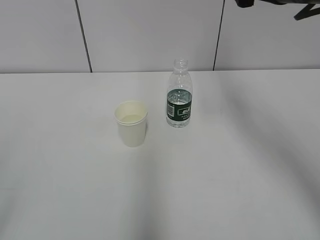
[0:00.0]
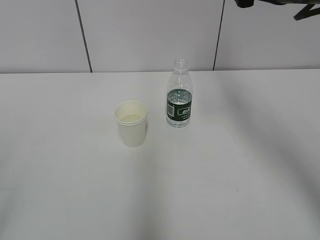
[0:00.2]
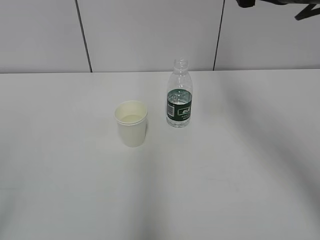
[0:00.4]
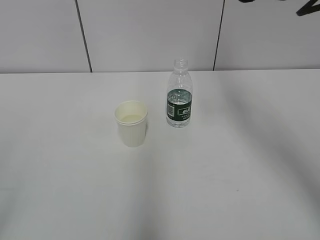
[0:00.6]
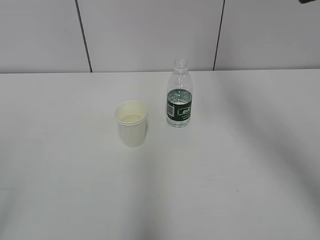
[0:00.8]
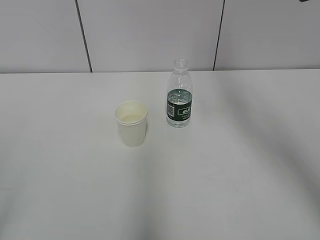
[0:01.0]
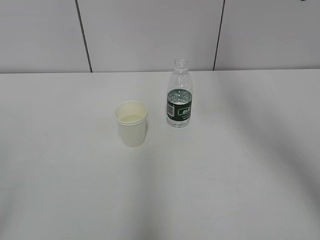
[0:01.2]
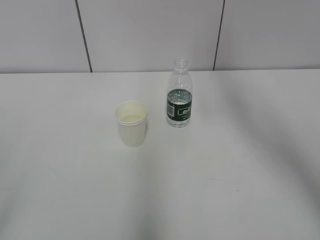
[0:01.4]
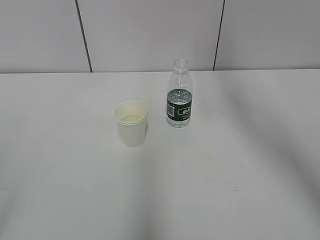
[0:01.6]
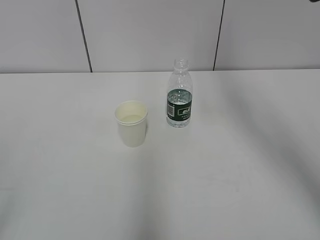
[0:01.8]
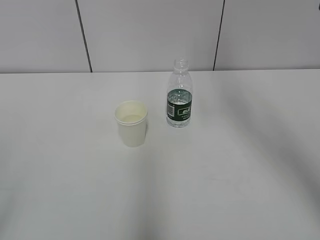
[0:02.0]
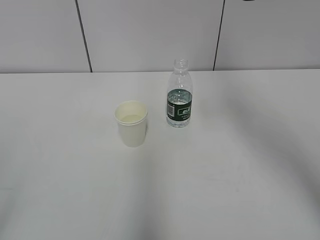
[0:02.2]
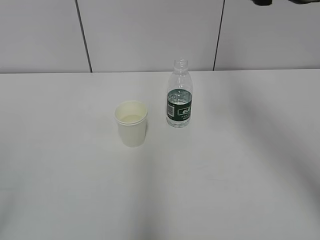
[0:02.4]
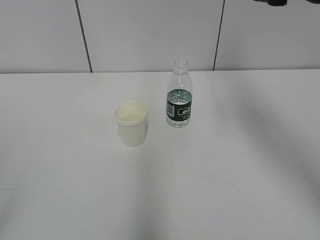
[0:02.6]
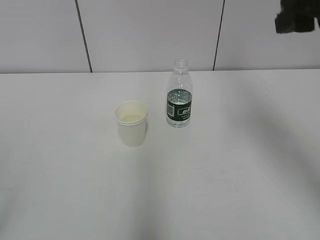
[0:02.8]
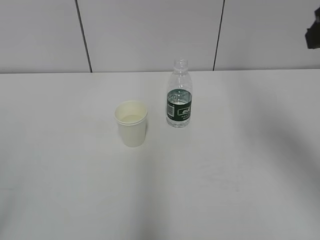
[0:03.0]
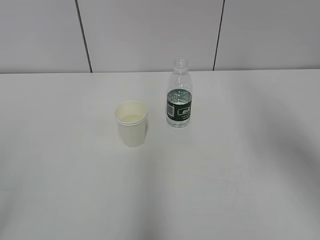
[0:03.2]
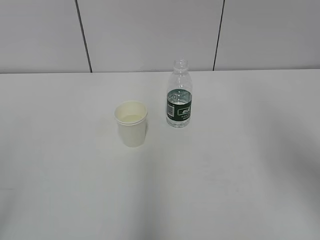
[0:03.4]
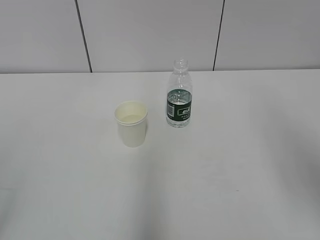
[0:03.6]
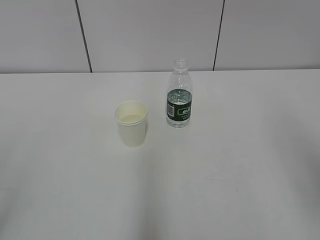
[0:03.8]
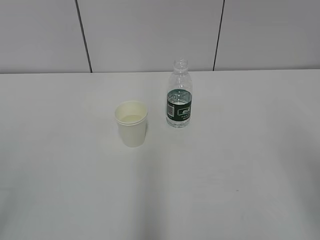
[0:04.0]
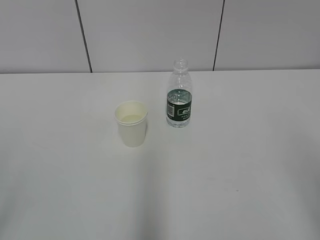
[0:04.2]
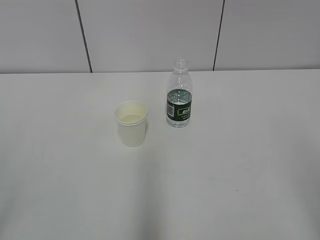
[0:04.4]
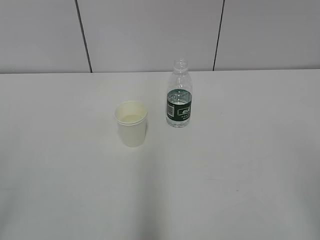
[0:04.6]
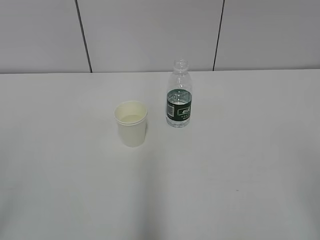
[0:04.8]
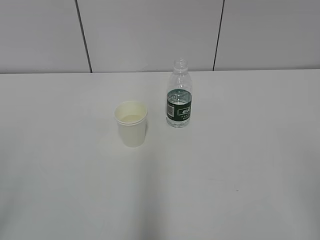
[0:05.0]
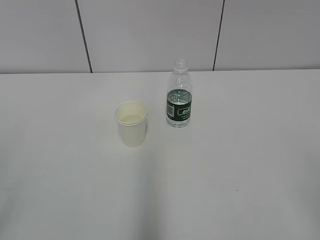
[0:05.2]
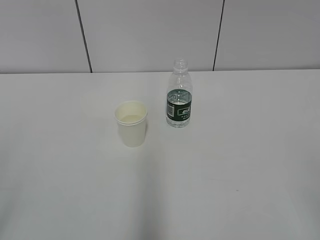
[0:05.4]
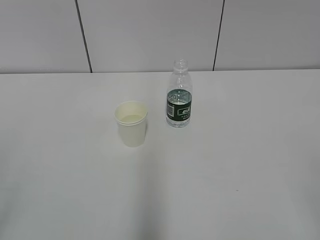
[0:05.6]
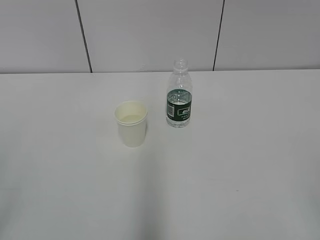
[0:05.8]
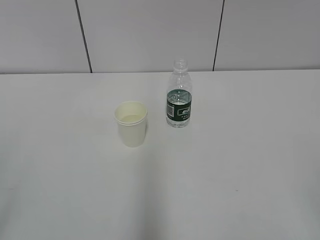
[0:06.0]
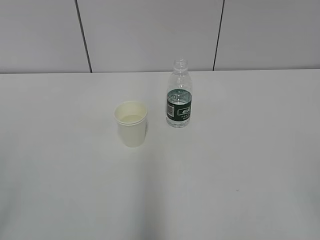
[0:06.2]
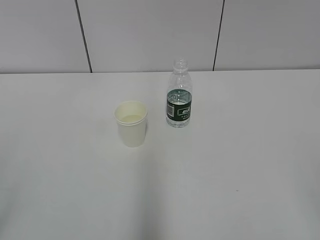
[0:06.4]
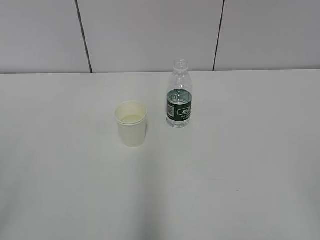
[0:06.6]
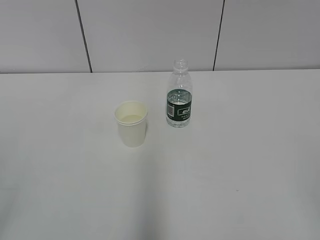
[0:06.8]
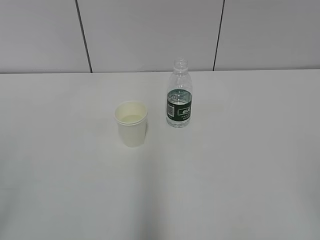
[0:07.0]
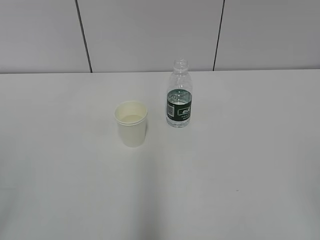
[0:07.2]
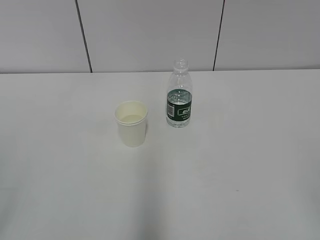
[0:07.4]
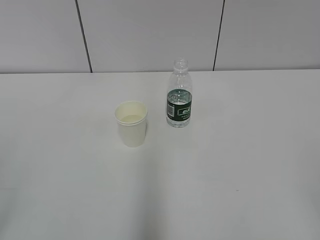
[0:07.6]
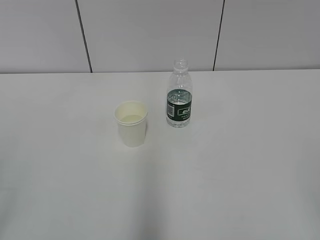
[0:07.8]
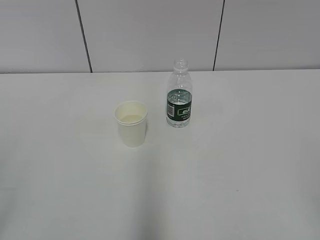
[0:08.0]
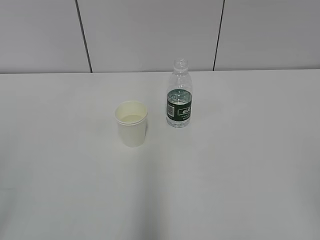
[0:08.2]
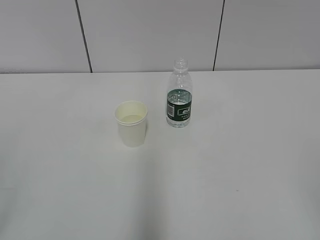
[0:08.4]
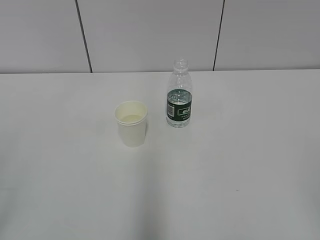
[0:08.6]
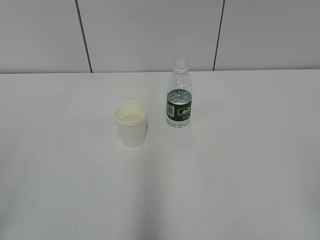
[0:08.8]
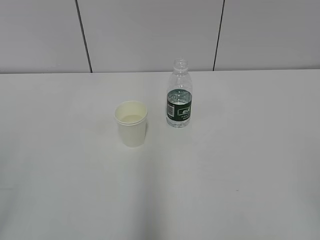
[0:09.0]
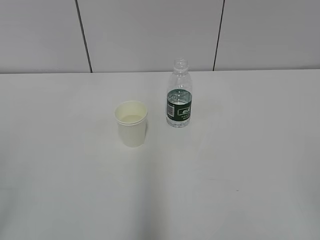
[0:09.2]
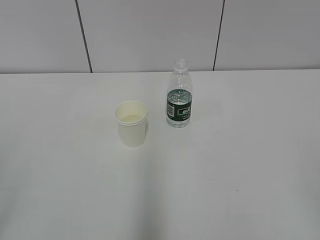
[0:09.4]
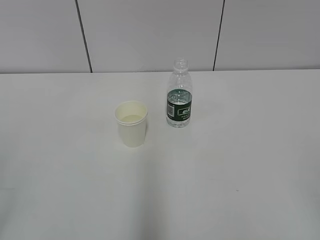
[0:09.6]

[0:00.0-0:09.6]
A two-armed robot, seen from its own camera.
0:01.6 to 0:03.2: The right gripper shifts some 15 cm backward and to the right.
0:06.4 to 0:09.6: Neither gripper changes place.

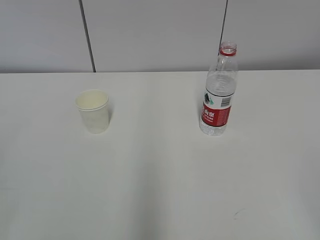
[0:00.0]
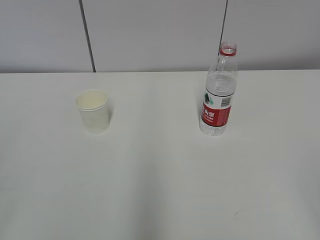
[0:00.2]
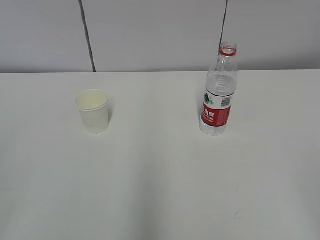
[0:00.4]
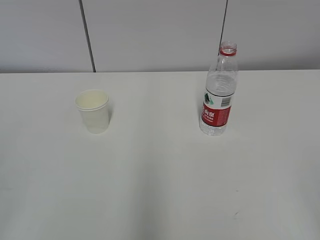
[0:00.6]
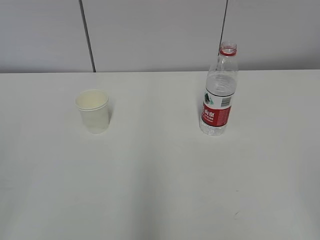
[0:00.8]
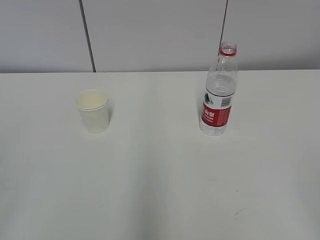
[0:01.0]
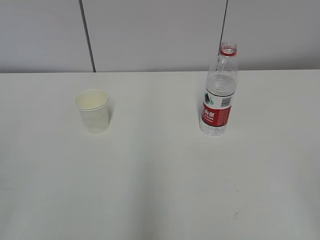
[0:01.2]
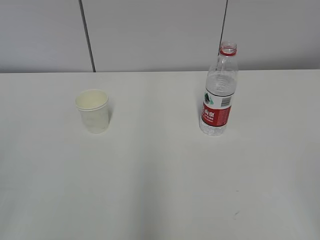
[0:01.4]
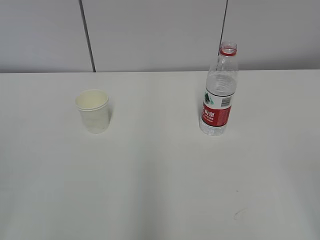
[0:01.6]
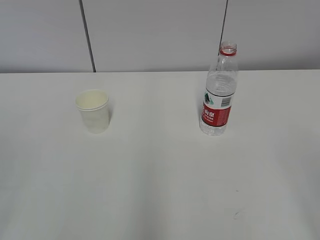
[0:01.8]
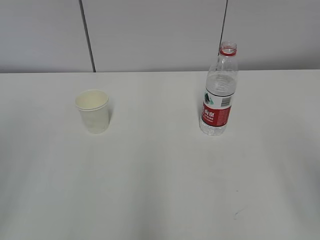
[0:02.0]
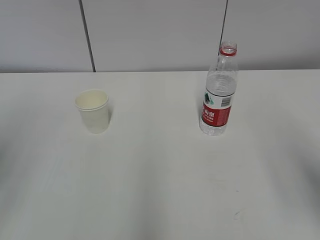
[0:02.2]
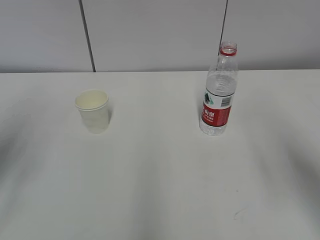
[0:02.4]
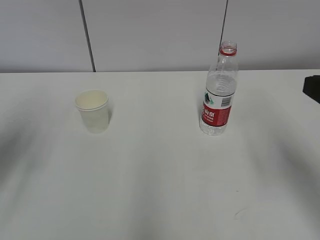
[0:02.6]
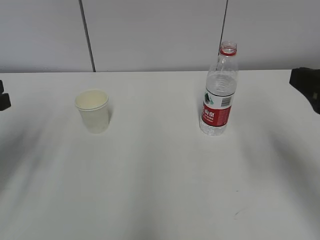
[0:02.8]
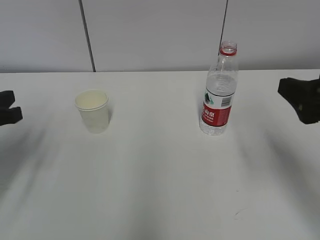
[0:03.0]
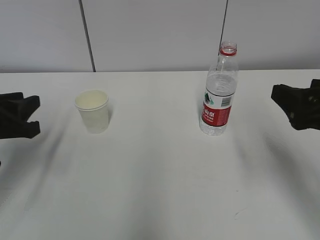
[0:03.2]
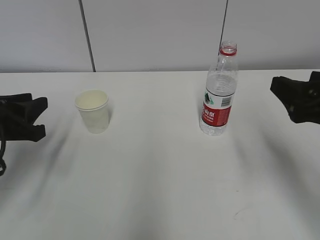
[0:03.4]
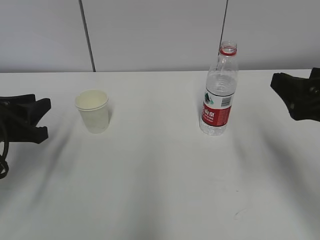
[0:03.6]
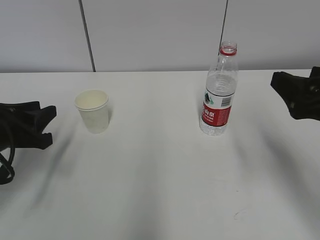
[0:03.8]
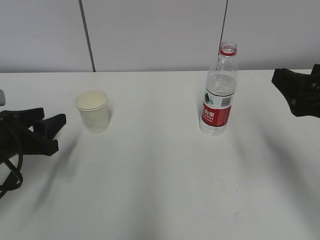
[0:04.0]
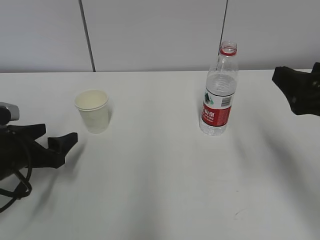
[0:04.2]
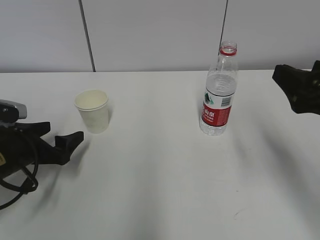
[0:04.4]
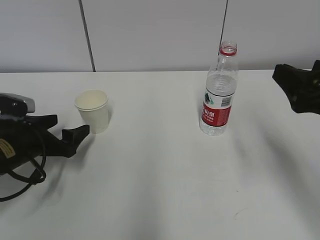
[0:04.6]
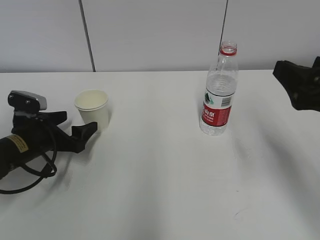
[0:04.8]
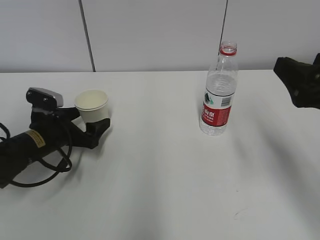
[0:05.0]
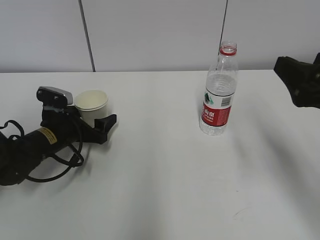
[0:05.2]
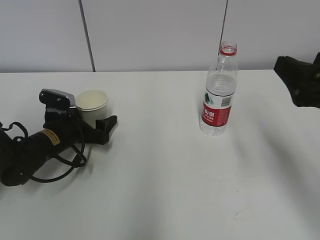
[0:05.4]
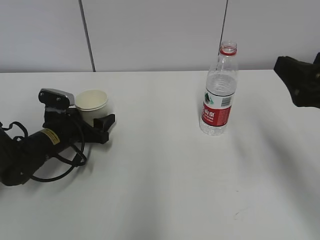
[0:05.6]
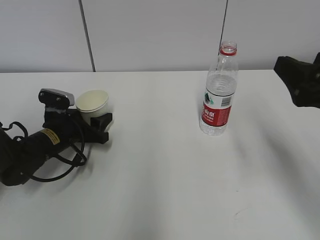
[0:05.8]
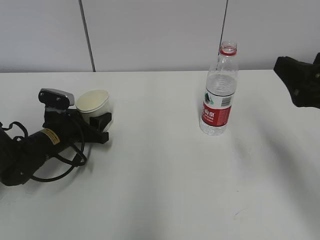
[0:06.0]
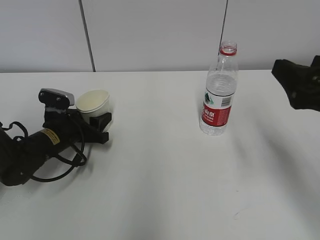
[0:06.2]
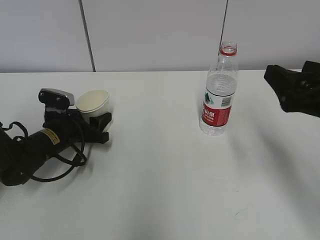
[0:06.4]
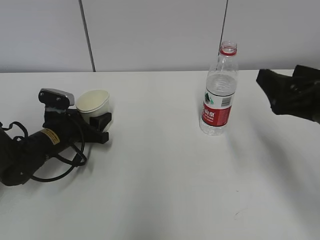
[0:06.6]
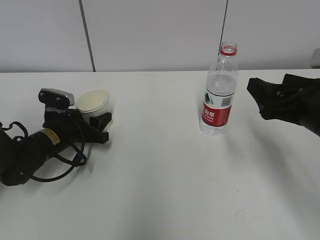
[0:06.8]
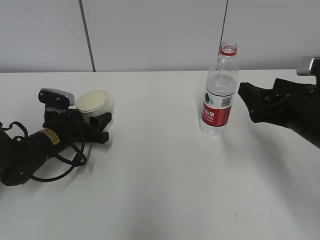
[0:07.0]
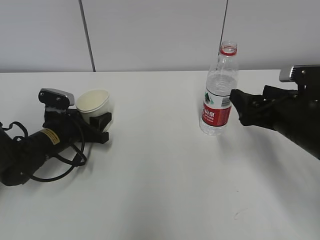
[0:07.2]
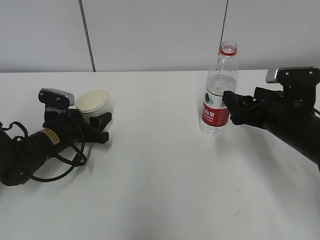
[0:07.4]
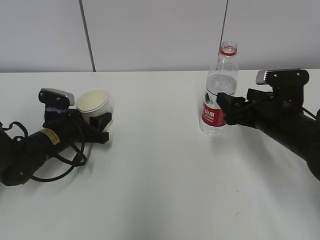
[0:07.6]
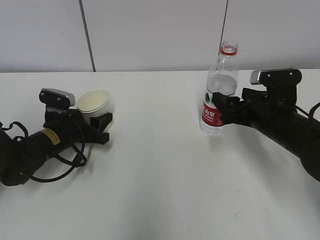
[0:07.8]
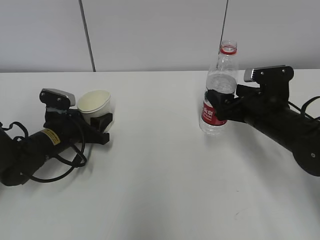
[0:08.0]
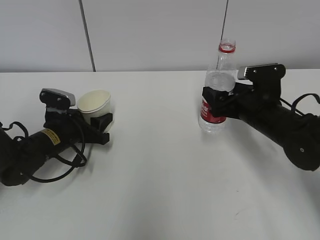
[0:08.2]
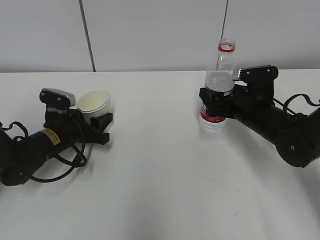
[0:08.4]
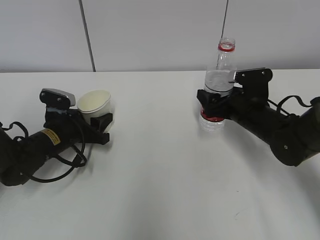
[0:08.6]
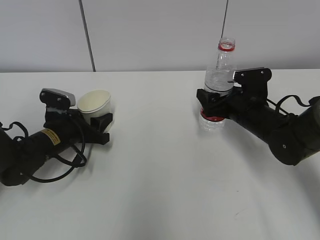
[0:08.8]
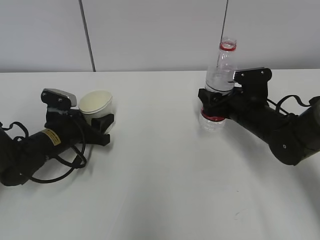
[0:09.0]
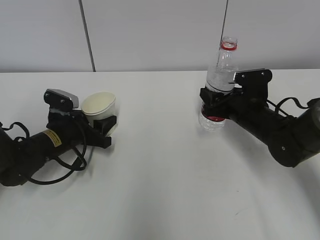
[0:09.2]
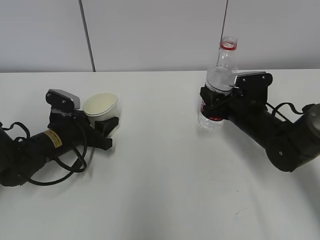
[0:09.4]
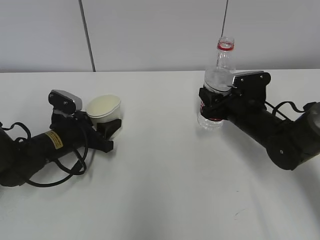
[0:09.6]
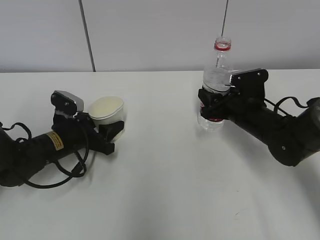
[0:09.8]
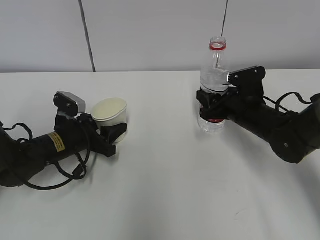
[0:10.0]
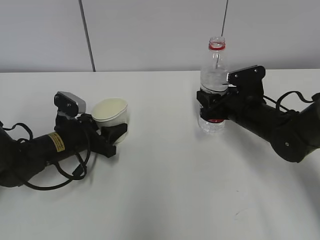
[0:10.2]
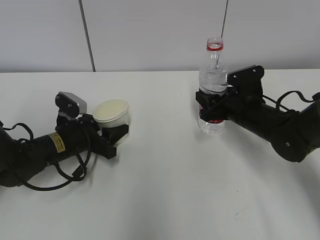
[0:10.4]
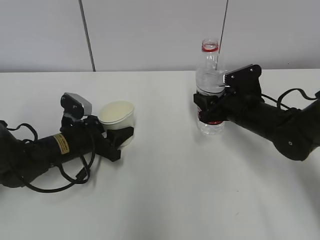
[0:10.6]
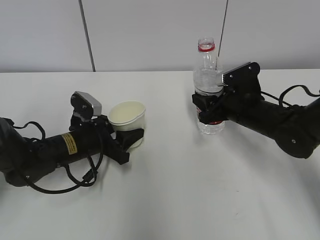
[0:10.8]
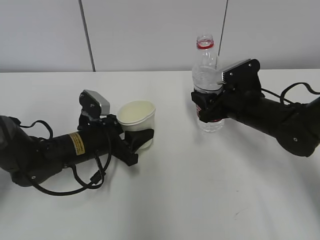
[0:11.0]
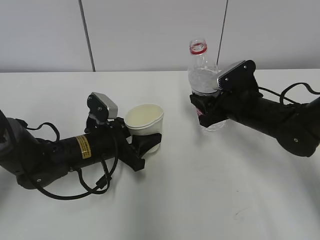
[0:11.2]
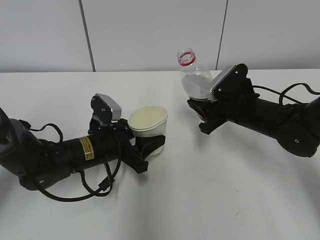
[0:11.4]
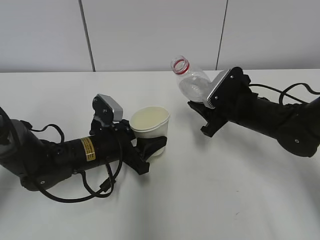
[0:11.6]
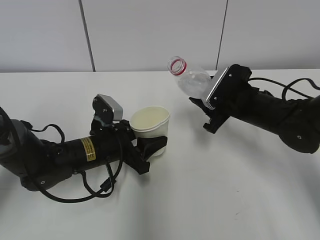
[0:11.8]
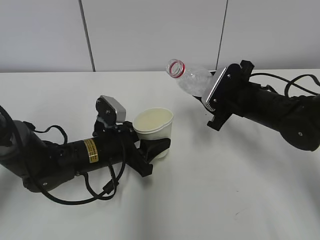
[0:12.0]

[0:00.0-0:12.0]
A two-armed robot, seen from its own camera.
Step, 0:00.0 to 0:04.8: Grab the paper cup with the left hand.
Step, 0:05.0 to 0:07.6: Grab the water bottle with the right hand.
0:01.6 to 0:03.0: Both grippers move forward, about 25 cm.
0:03.0 to 0:04.4: The left gripper goes roughly 10 cm downward, and opens its fingers.
0:04.4 to 0:06.0: The left gripper is displaced forward by roughly 10 cm, and closes its fingers.
0:06.0 to 0:07.6: The right gripper moves downward and forward, about 15 cm.
0:07.6 to 0:09.0: The right gripper heads forward, covering approximately 5 cm, and closes its fingers.
0:09.0 to 0:10.4: The right gripper closes its fingers.
0:10.4 to 0:12.0: The left gripper moves to the right, roughly 10 cm.

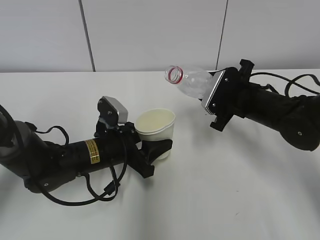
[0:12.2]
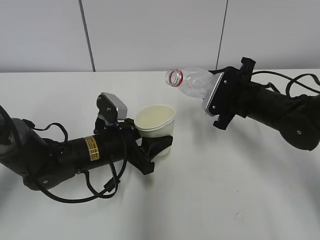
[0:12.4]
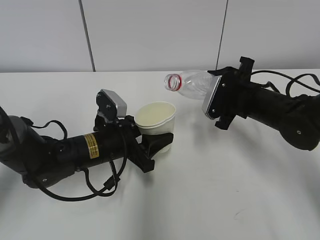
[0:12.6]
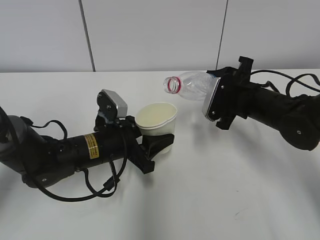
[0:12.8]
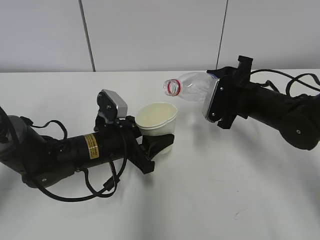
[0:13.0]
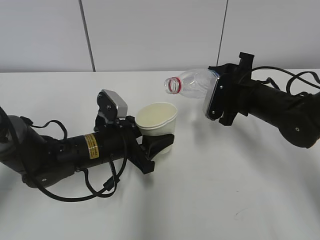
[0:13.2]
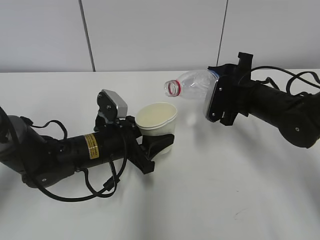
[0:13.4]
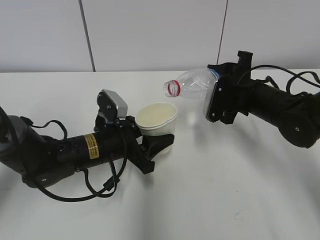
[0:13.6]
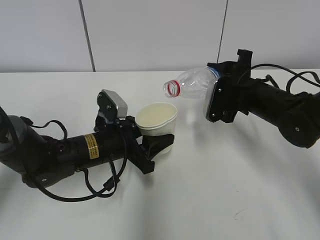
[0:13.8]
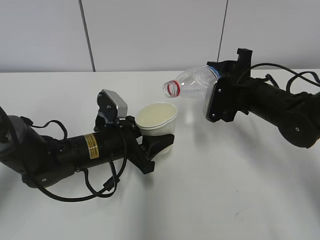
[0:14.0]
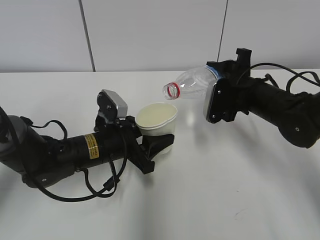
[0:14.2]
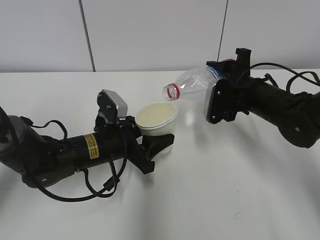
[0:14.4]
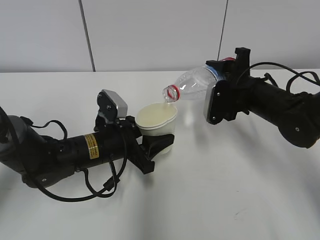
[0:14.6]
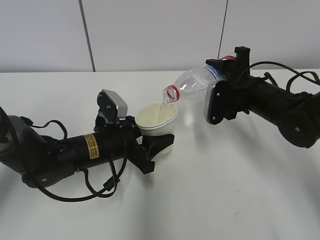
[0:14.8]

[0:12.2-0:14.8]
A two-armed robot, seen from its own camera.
Step, 0:12.2 to 0:14.6: Fill water with the left hand.
Step, 0:12.2 to 0:14.6: Pour water with the right hand.
0:12.2 to 0:13.4: There are only small adjustments of the grippers.
0:13.4 to 0:14.8: There are only small adjustments of the grippers.
